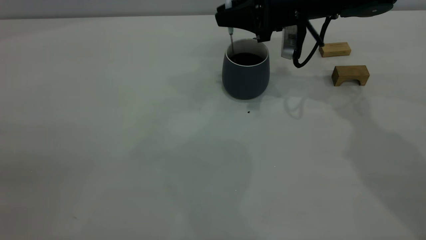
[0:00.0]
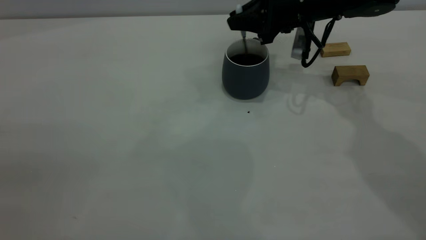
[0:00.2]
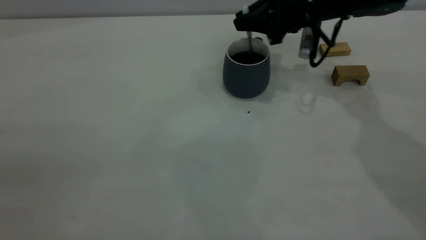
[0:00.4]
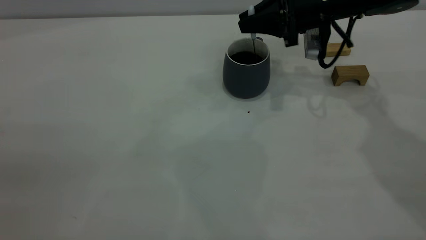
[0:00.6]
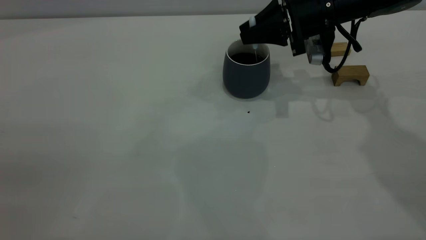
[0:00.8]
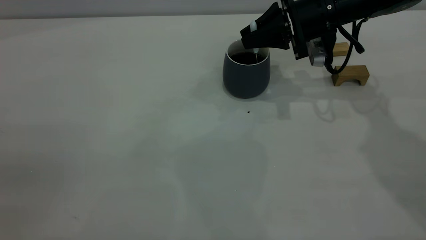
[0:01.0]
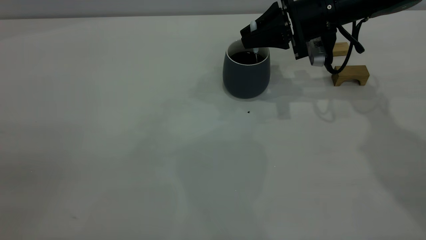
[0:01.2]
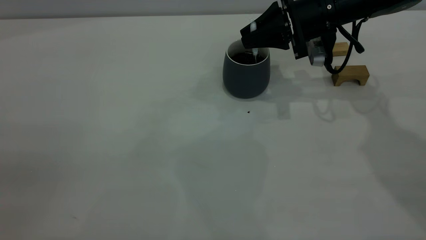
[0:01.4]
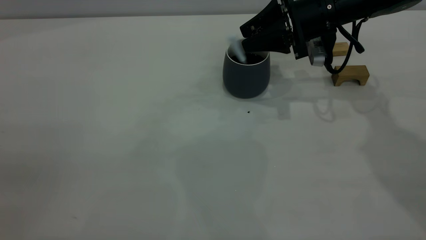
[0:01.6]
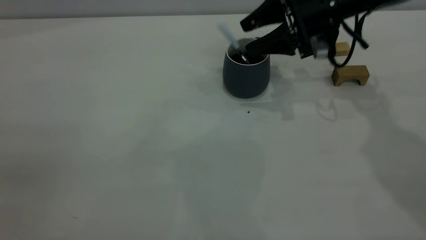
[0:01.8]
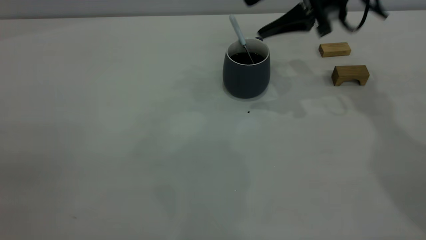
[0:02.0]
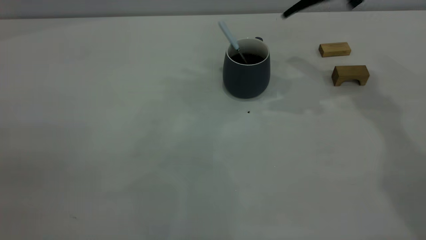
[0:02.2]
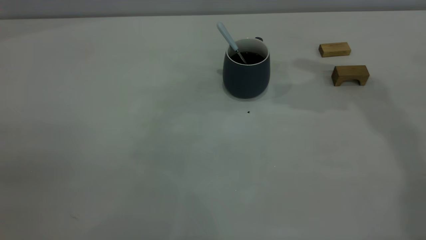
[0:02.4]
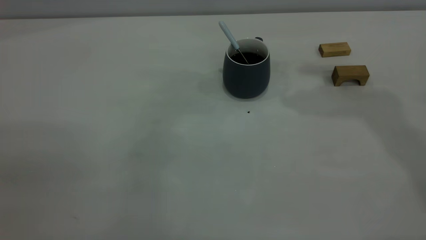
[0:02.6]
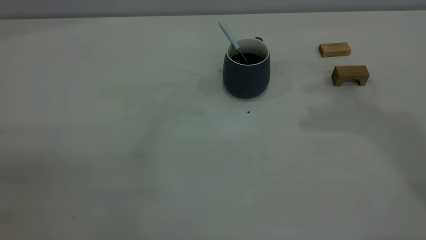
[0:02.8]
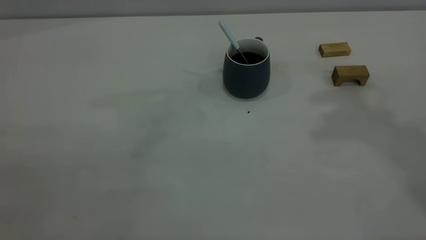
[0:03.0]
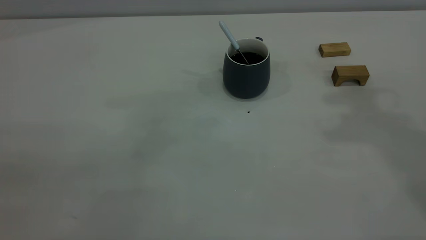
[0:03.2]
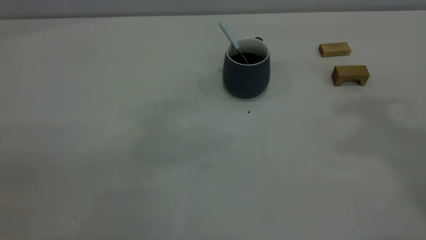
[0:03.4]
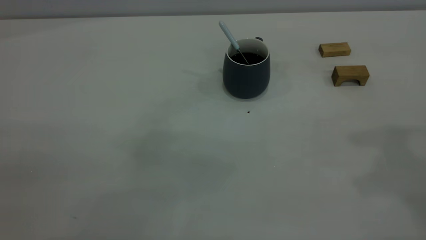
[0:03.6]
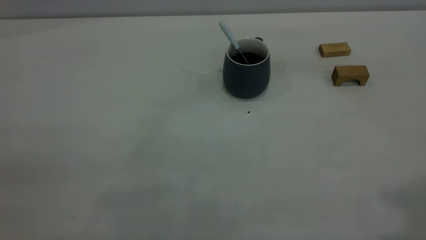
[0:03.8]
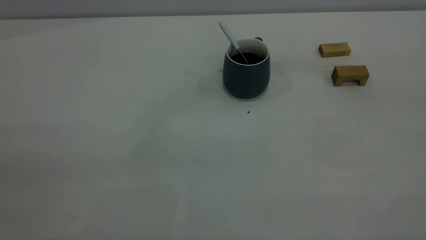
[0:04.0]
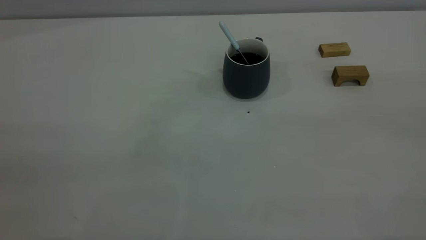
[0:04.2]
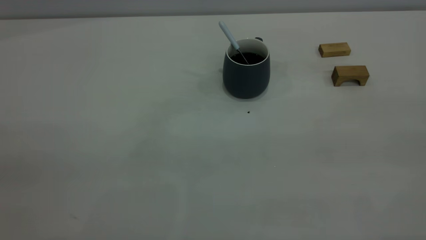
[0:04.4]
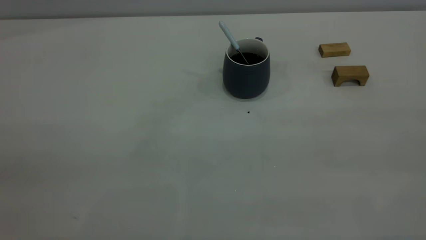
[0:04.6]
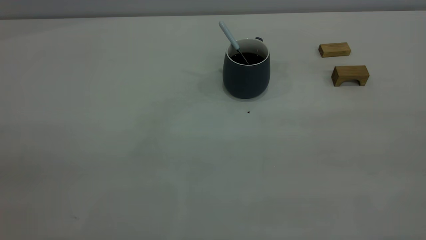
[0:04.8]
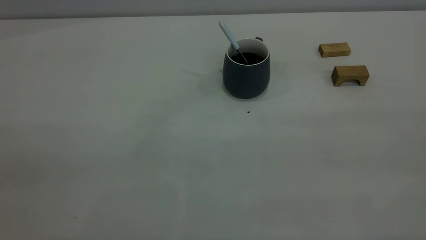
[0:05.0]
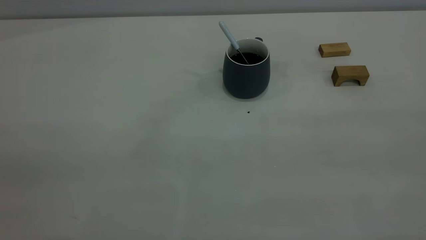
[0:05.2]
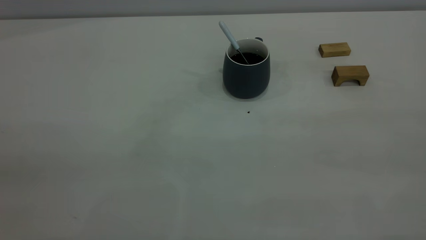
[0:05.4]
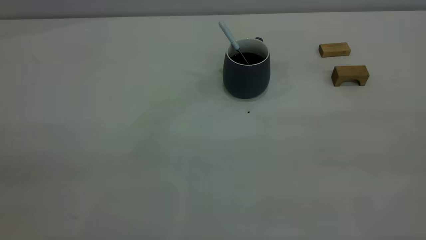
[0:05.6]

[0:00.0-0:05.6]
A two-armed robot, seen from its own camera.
0:00.0 to 0:01.4: The grippers move only a little.
0:01.4 to 0:02.8: The right gripper moves upward, about 35 cm, and opens, then closes again.

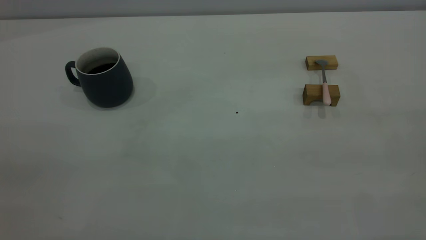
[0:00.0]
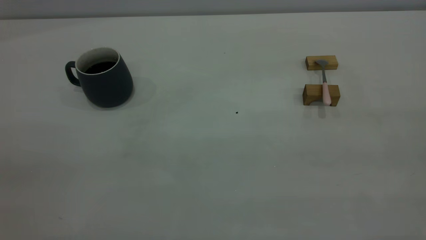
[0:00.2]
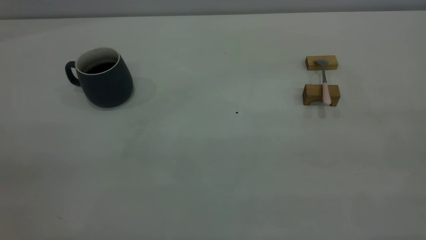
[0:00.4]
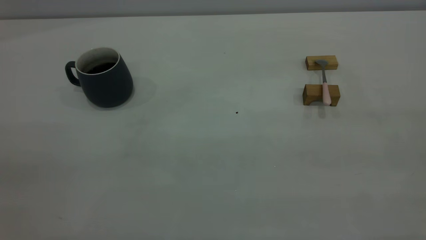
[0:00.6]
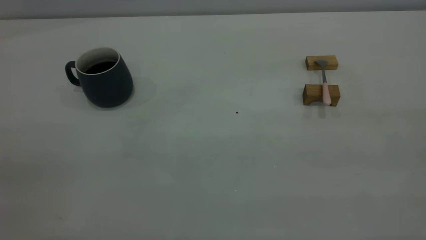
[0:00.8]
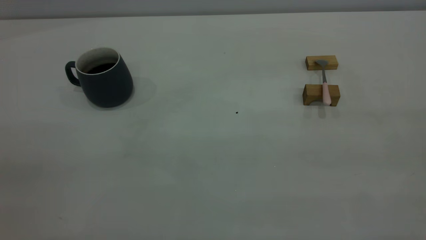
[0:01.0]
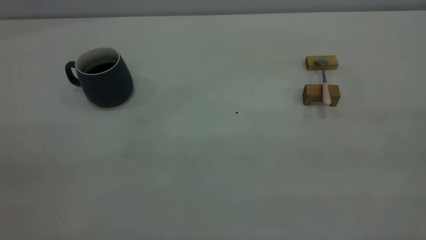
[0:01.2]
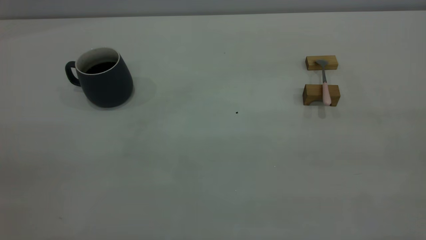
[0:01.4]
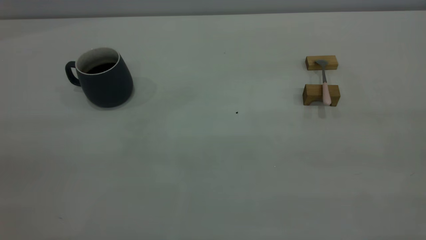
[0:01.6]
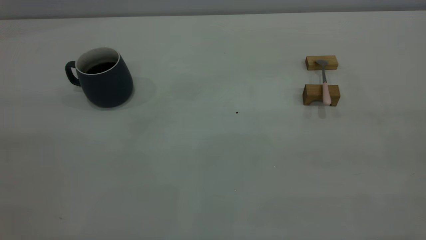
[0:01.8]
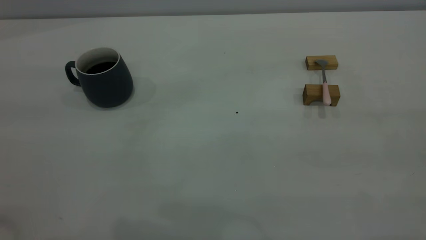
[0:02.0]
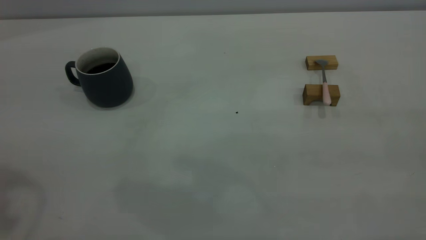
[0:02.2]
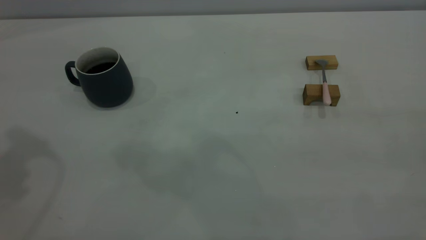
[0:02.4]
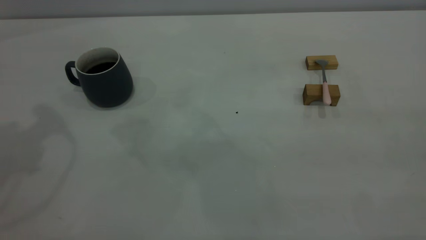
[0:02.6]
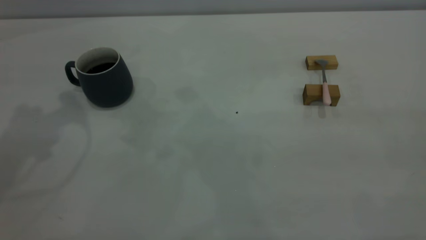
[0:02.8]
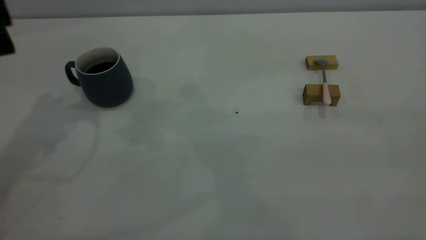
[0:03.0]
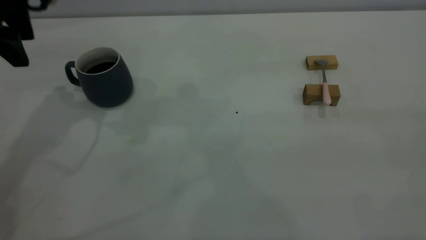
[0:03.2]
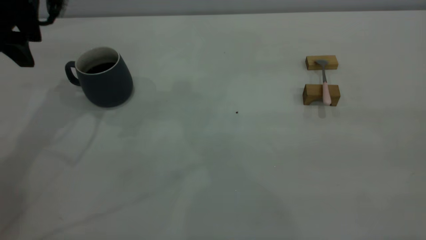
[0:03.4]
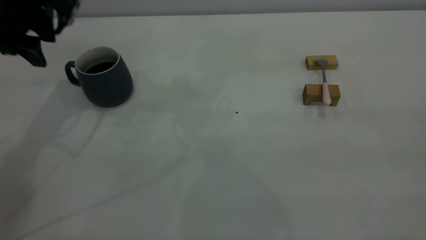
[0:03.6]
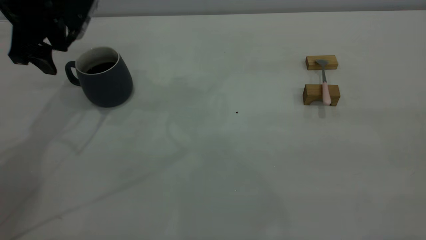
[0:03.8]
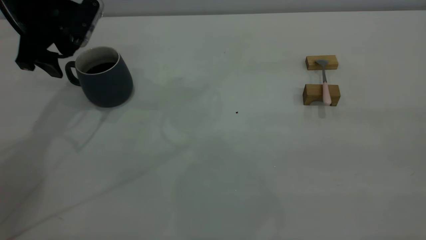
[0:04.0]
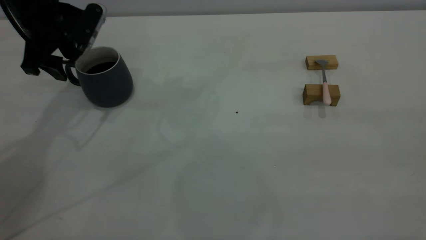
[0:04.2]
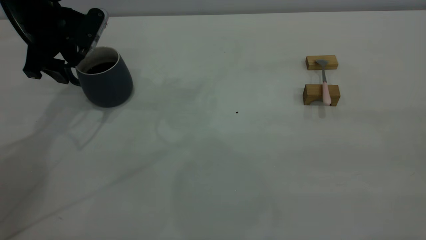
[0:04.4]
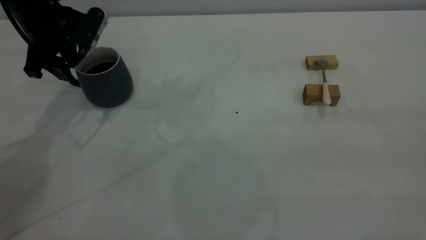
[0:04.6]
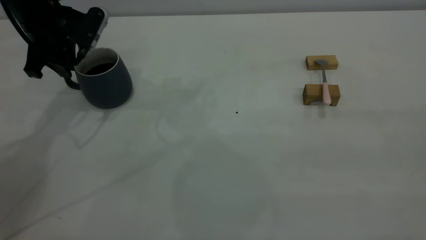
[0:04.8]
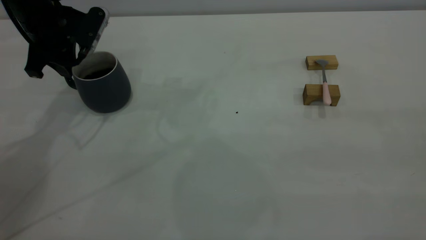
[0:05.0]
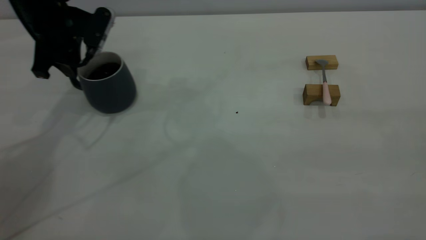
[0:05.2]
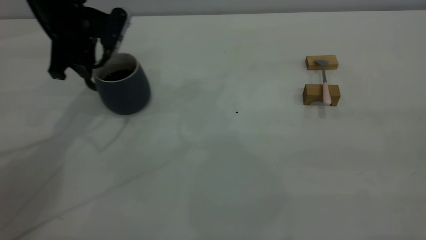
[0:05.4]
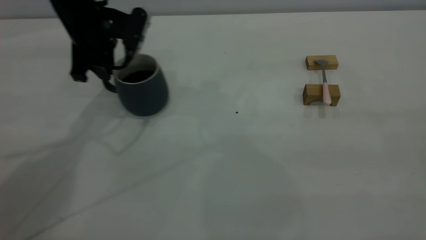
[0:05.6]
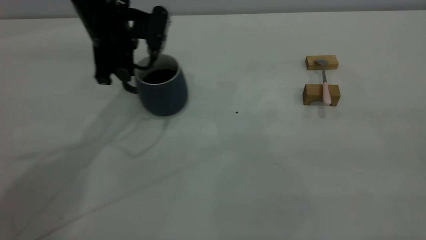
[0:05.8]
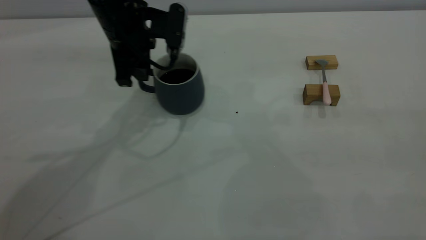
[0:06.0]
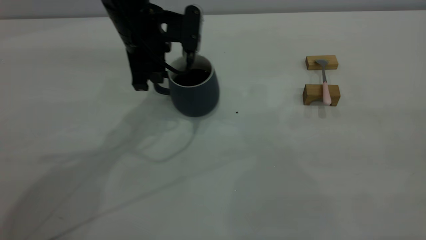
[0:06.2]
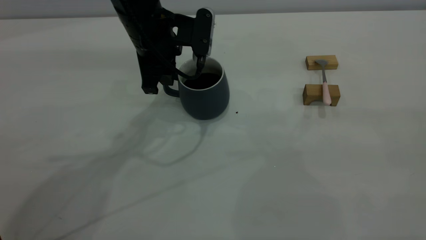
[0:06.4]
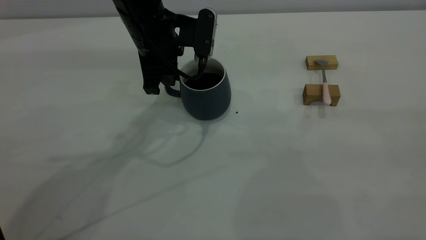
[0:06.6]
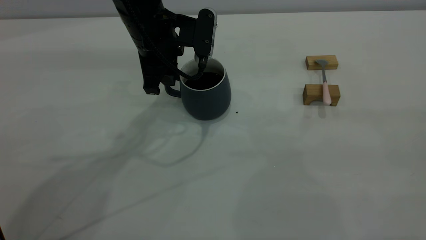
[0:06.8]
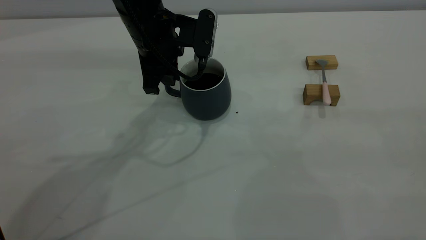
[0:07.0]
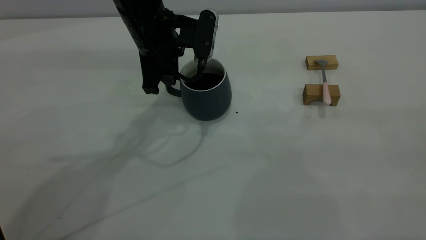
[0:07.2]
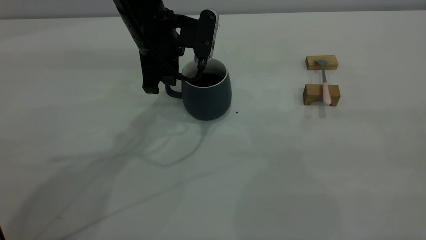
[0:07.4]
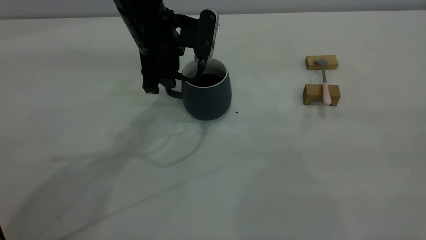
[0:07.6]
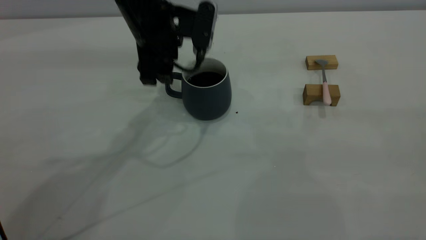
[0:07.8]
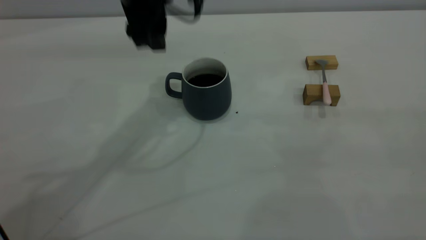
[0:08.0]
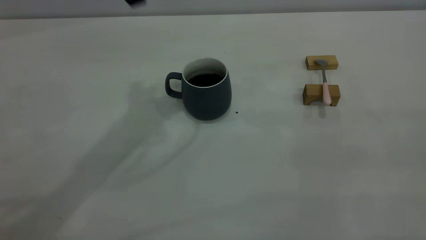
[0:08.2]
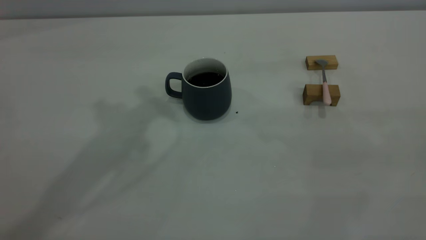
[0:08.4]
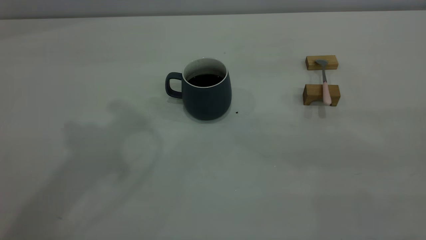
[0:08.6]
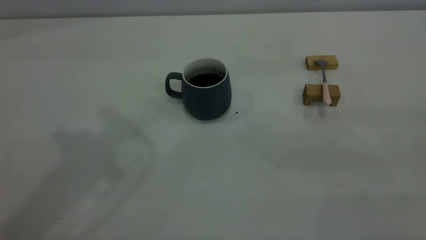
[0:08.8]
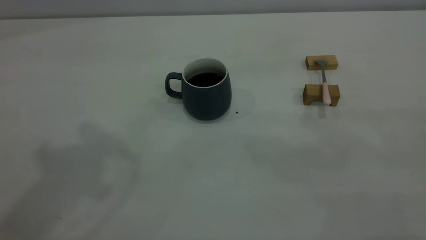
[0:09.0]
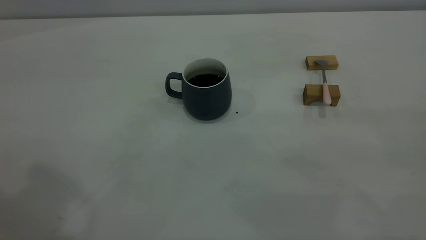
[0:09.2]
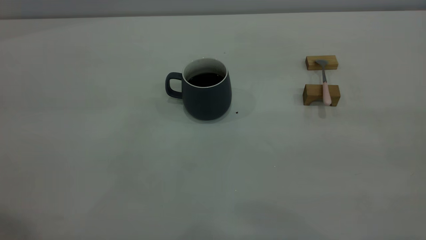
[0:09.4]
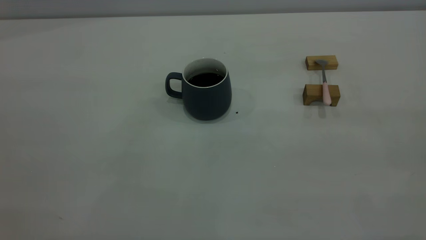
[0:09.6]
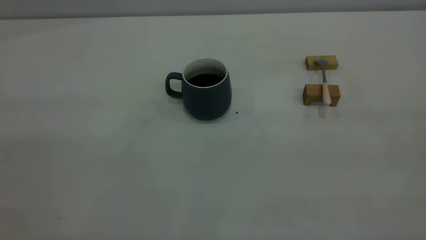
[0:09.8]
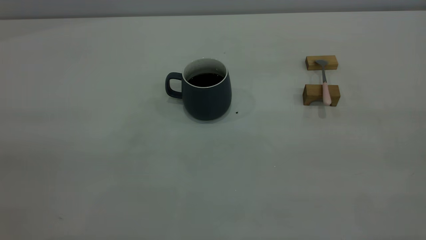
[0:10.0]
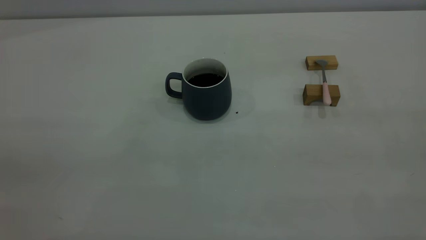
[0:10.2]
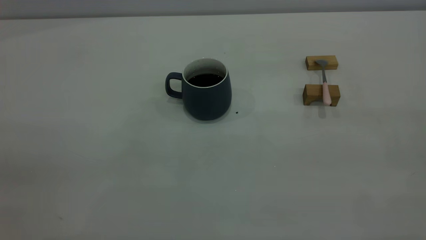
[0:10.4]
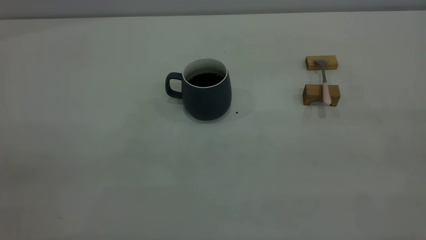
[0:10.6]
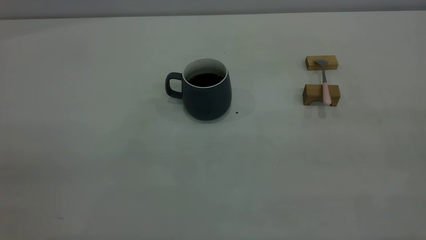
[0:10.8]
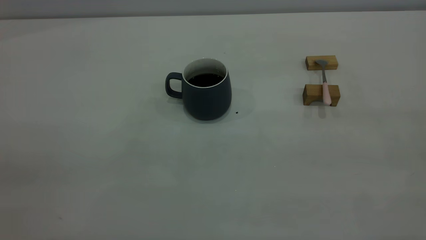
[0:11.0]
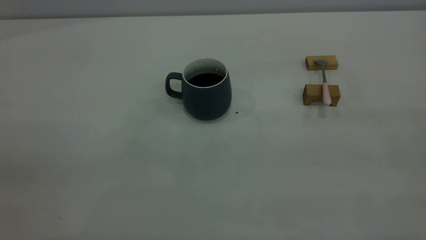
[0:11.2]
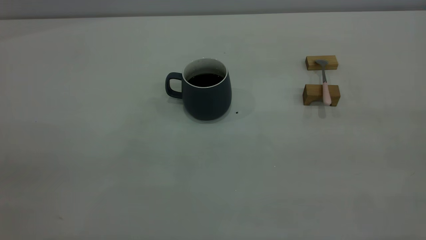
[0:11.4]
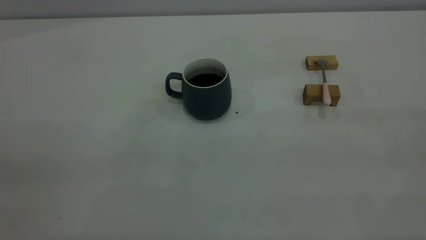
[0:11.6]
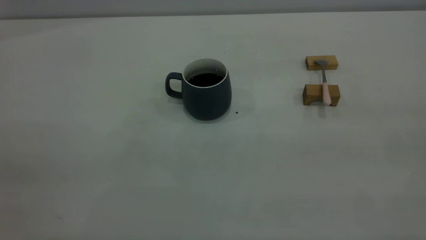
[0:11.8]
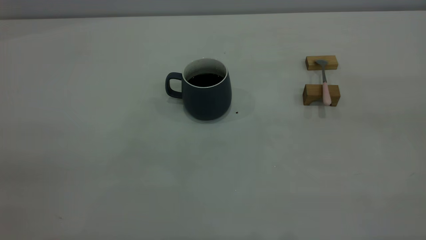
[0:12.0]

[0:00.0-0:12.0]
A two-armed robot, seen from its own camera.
Step, 0:00.0 to 0:08.0: Move the cup with coffee to the center of view.
0:03.0 to 0:04.4: The left gripper travels downward and forward by approximately 15 cm.
0:04.4 to 0:06.0: The left gripper goes about 15 cm to the right, and closes.
0:06.0 to 0:07.6: The left gripper opens up.
0:07.6 to 0:09.0: The left gripper goes some 35 cm upward and backward.
